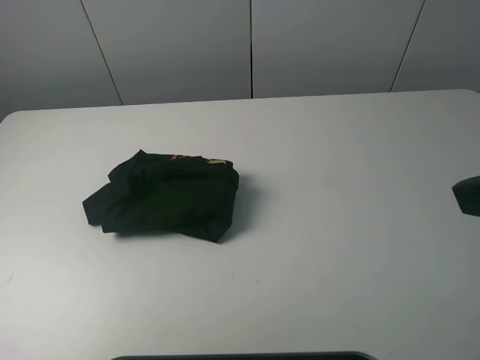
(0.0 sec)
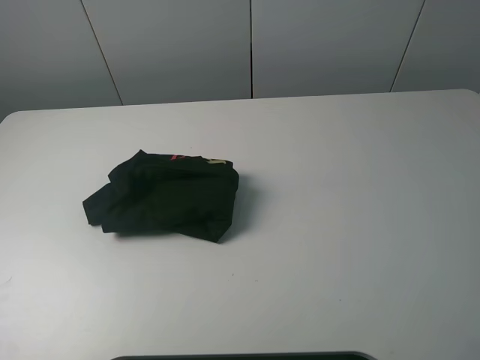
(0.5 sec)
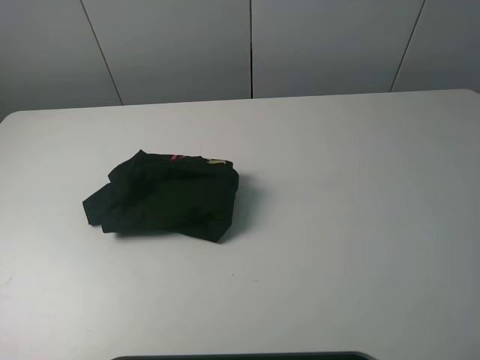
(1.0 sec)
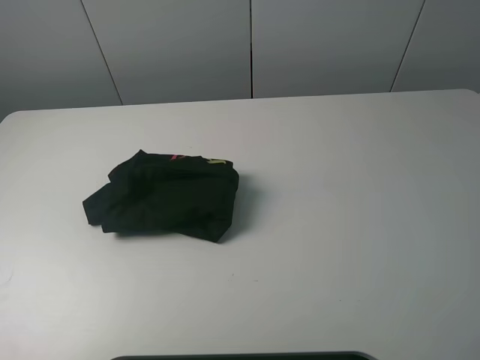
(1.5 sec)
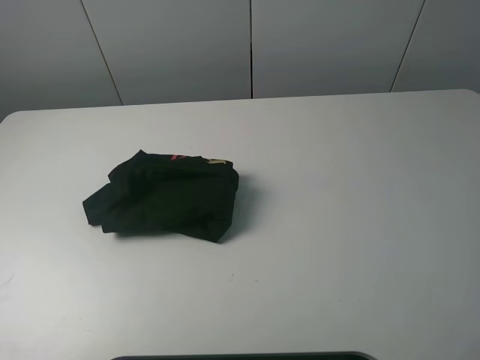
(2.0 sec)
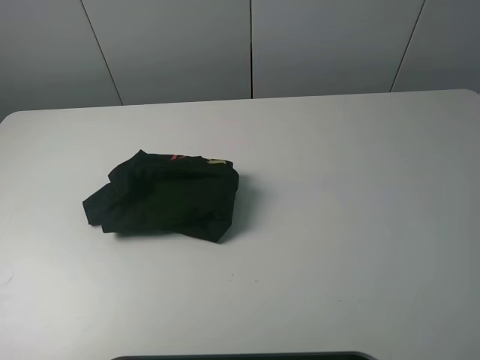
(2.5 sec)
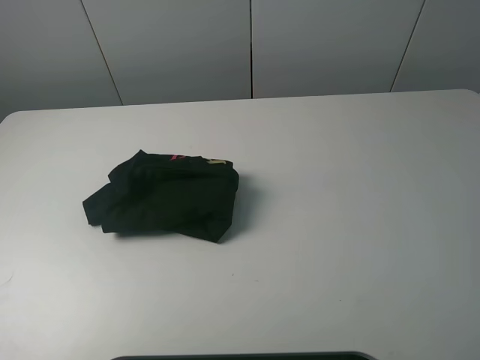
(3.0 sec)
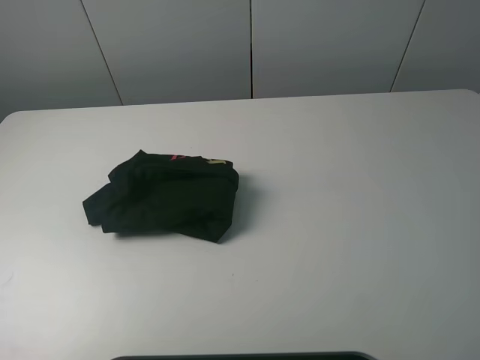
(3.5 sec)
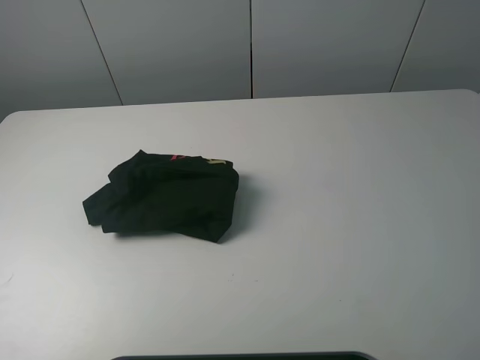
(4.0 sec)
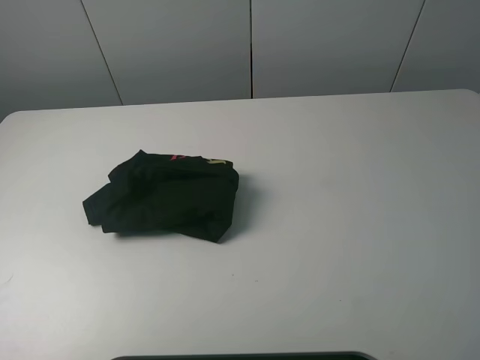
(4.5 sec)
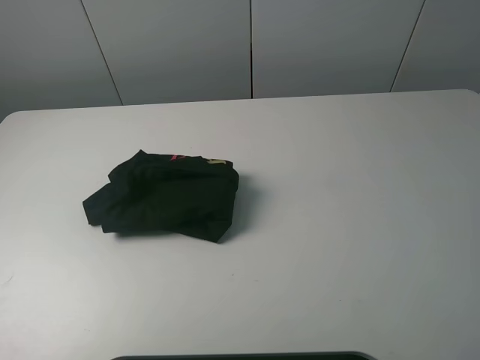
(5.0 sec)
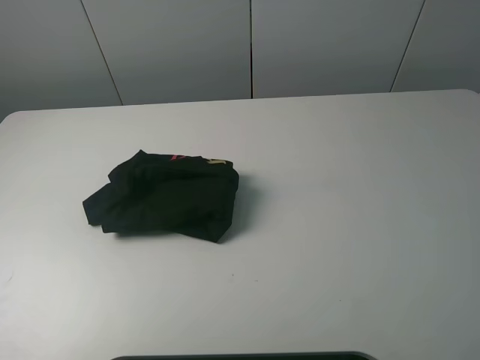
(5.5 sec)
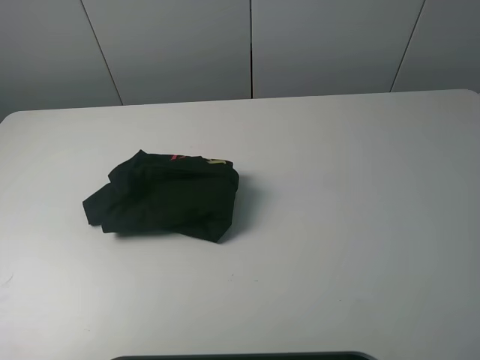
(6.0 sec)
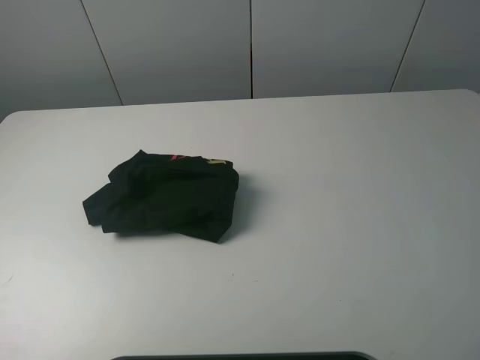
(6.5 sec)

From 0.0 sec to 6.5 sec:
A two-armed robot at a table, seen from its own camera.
Task of the whole recording: fold the clothes on the table.
From 4.5 sec to 6.5 sec: Both grippers stay about where they are.
